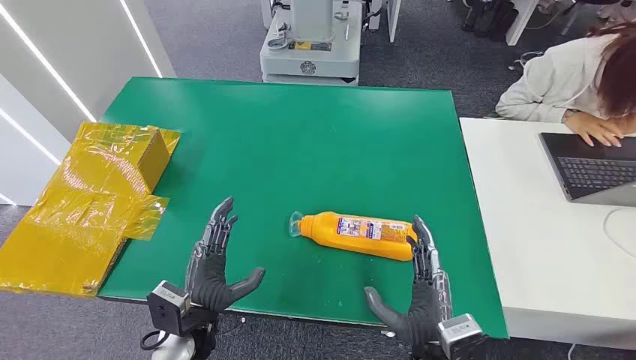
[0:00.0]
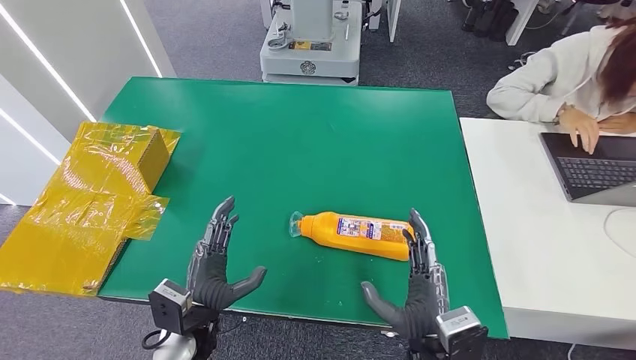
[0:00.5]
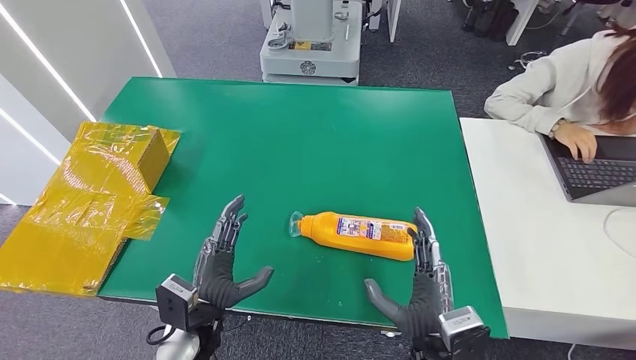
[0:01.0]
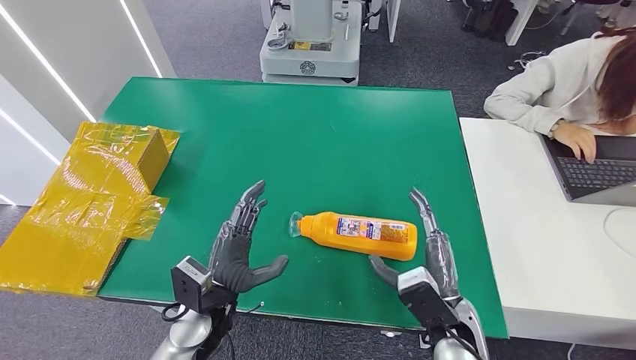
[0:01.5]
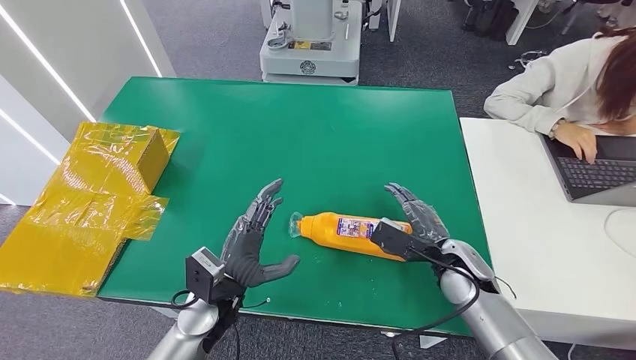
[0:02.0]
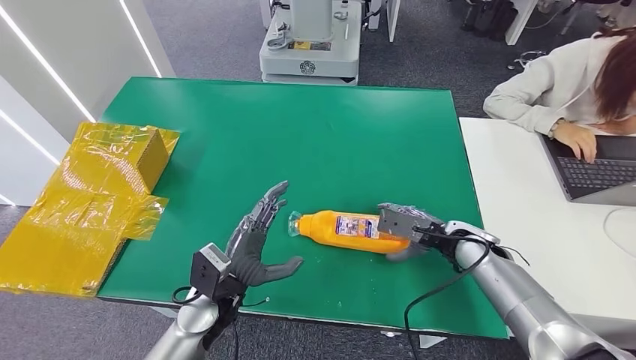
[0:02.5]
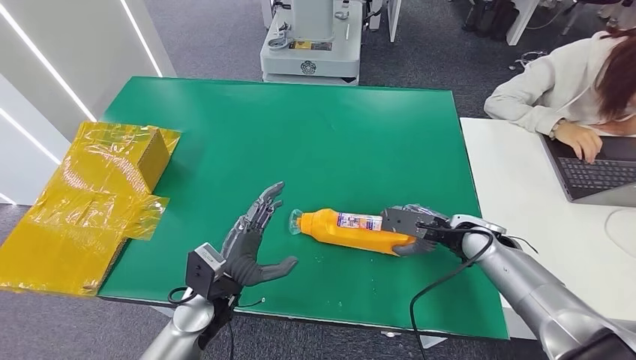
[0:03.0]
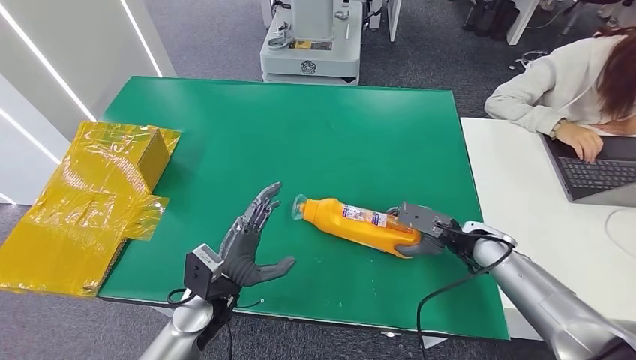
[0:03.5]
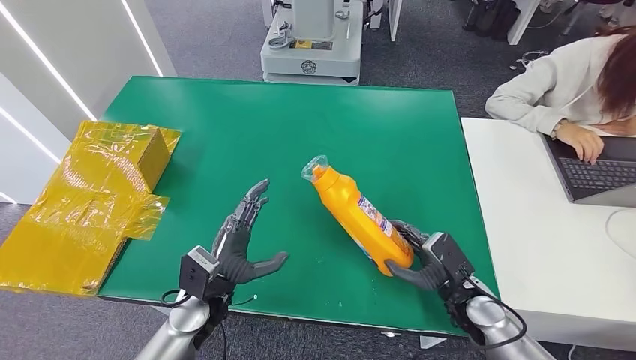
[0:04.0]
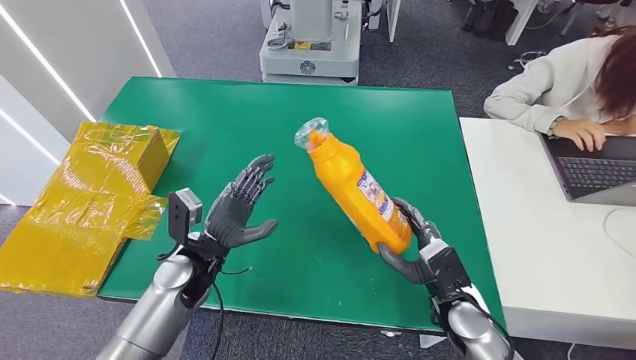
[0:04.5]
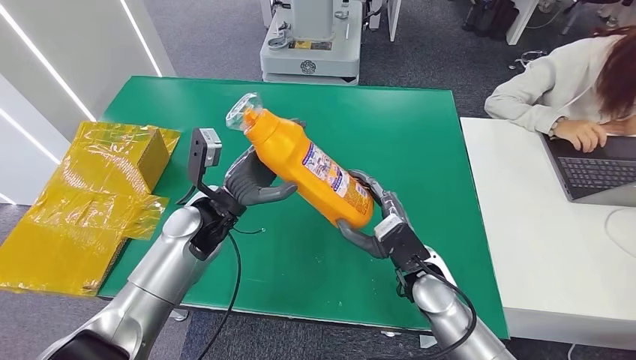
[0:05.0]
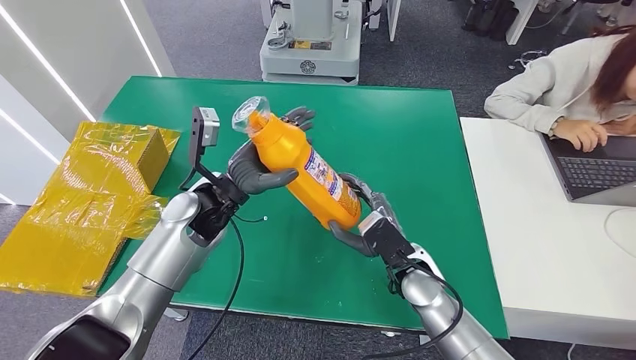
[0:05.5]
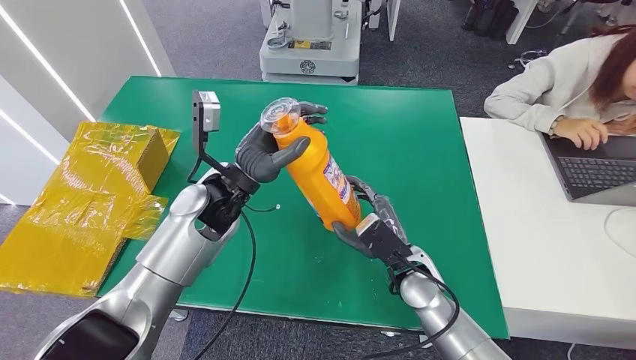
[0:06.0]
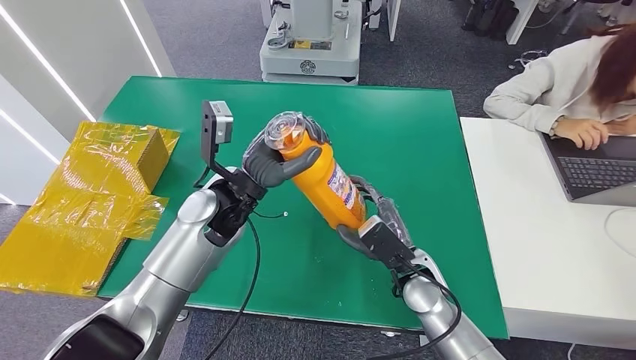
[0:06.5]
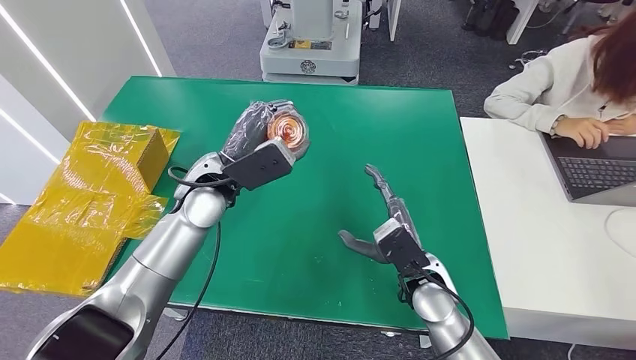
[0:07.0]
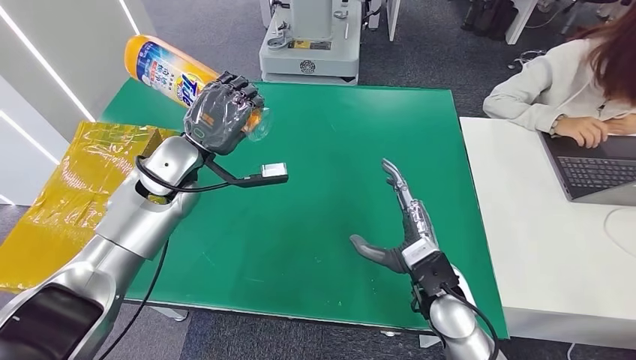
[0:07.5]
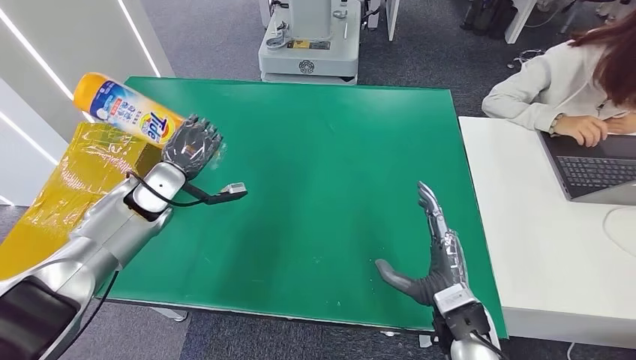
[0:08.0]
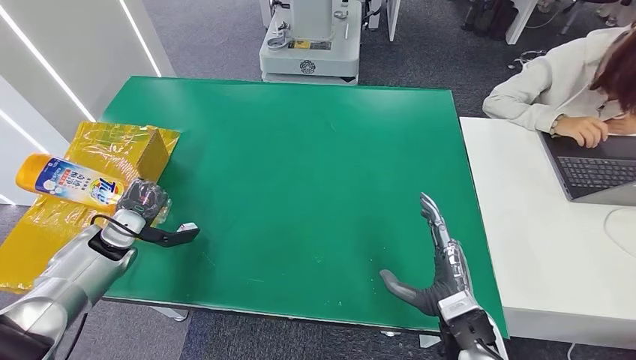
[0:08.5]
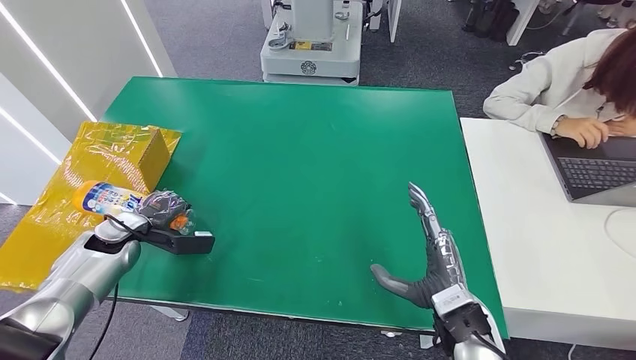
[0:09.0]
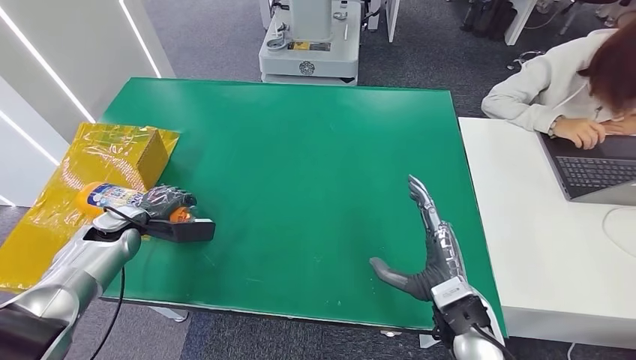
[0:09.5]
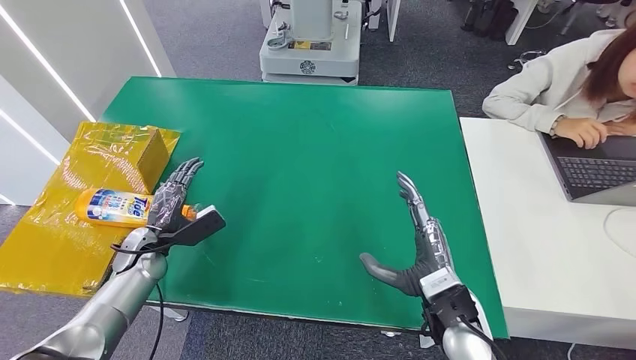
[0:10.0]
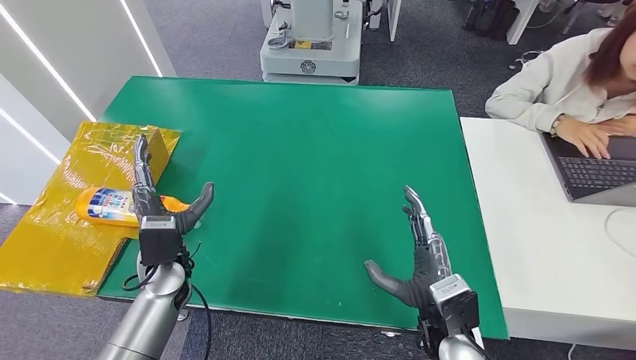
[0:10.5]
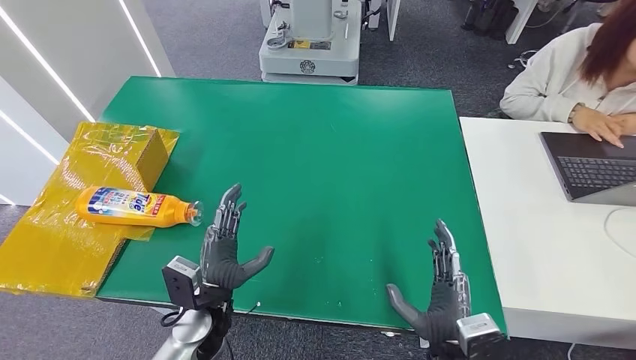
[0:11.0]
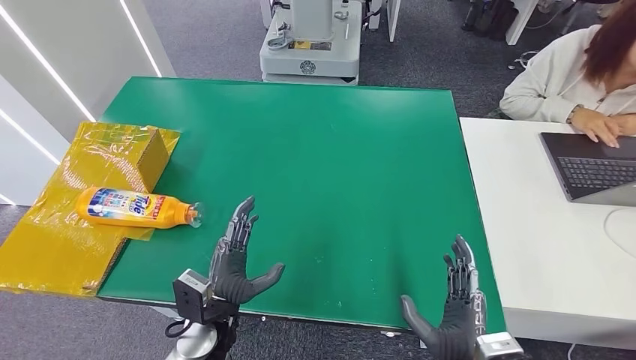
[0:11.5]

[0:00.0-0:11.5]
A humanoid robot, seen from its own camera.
Step, 0:00.0 to 0:04.5: Pick up the bottle from the table.
Step, 0:05.0 to 0:11.5: Turn the bottle to the front side.
0:02.0 to 0:04.0: The right hand goes approximately 5 cm downward.
0:07.5 to 0:09.5: The left hand is displaced to the left and downward by roughly 25 cm.
0:09.5 to 0:11.5: The left hand heads to the right and backward, covering some 30 cm. Meanwhile the right hand goes some 10 cm backward.
